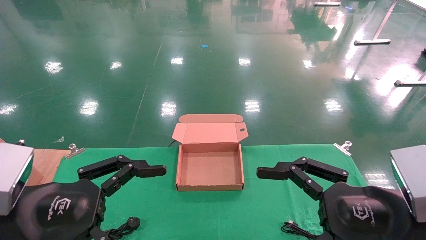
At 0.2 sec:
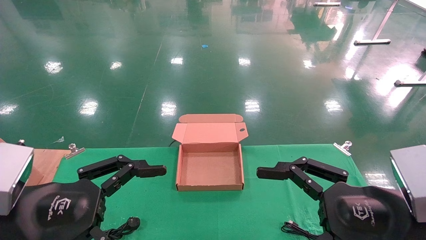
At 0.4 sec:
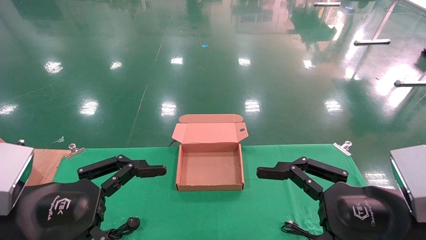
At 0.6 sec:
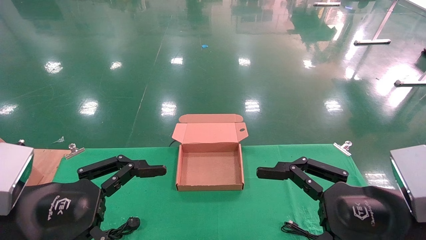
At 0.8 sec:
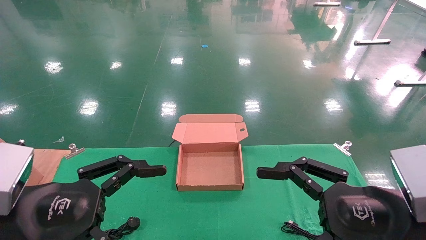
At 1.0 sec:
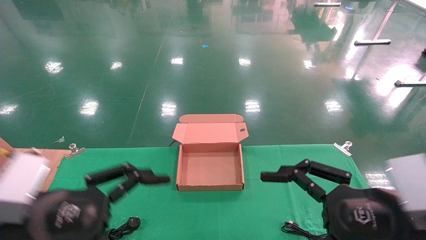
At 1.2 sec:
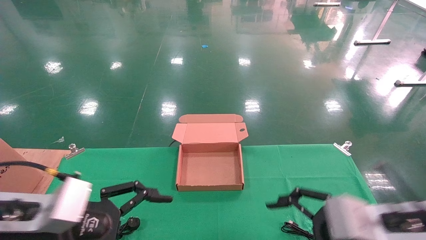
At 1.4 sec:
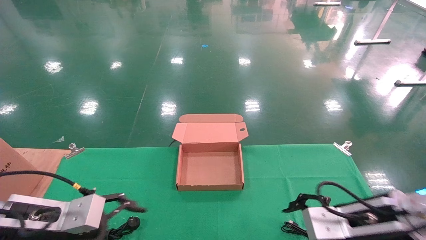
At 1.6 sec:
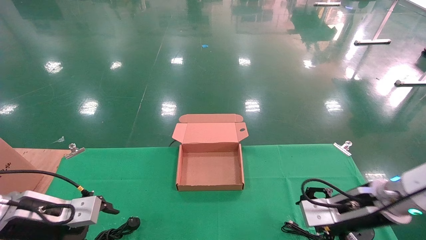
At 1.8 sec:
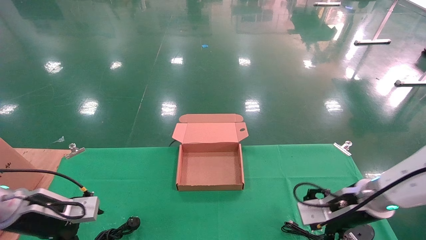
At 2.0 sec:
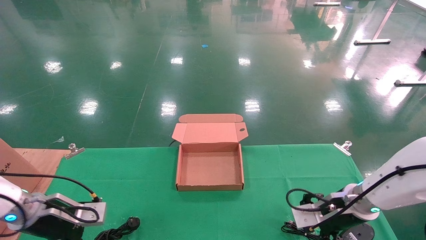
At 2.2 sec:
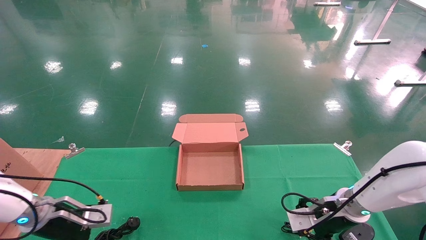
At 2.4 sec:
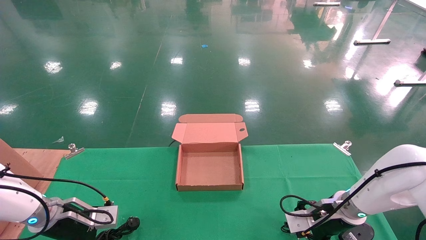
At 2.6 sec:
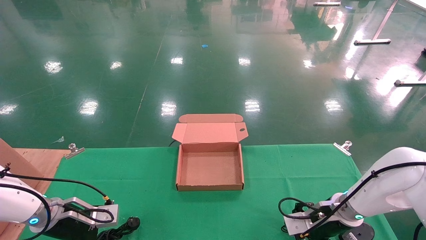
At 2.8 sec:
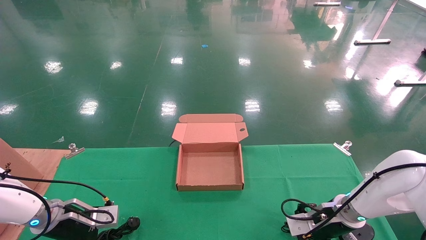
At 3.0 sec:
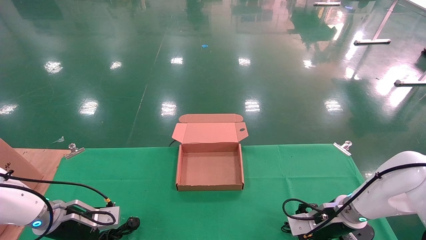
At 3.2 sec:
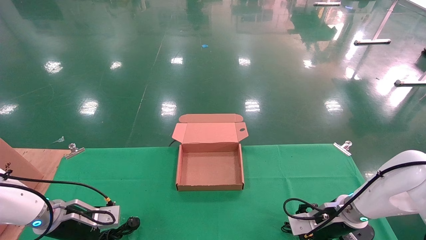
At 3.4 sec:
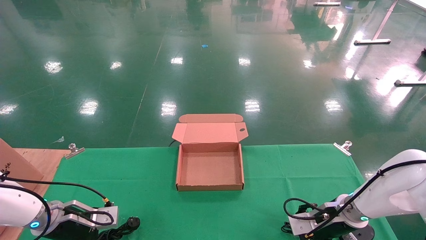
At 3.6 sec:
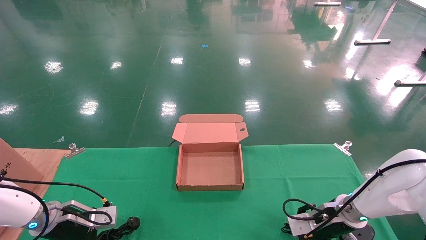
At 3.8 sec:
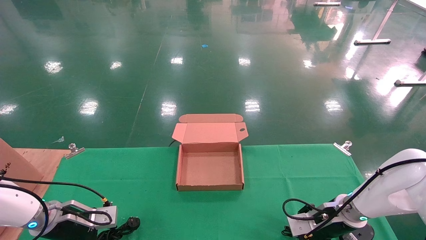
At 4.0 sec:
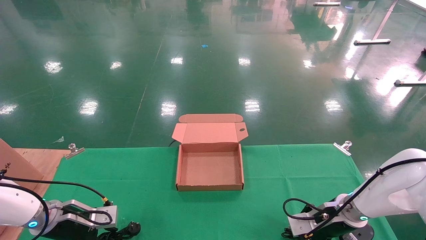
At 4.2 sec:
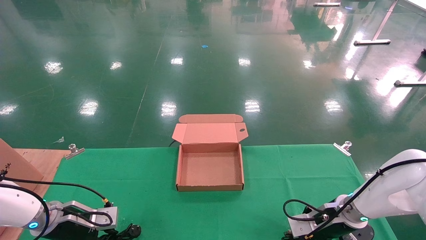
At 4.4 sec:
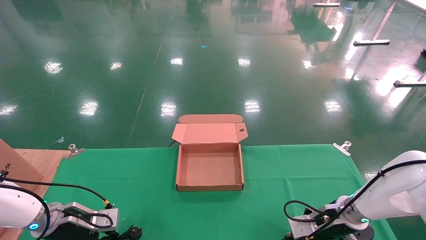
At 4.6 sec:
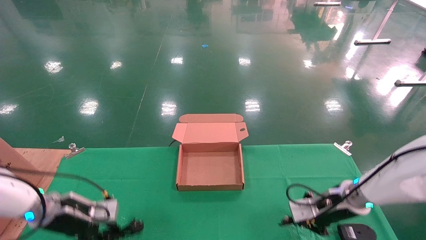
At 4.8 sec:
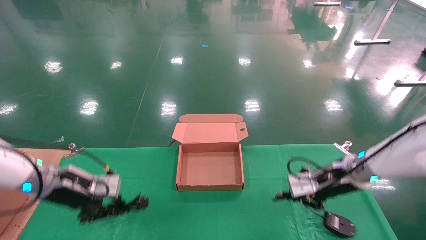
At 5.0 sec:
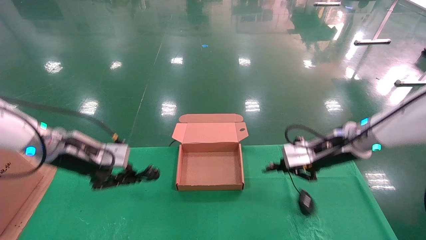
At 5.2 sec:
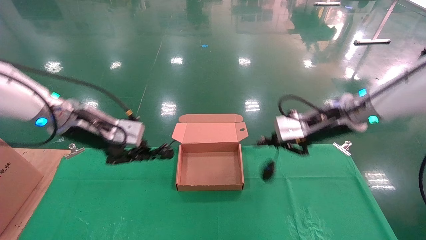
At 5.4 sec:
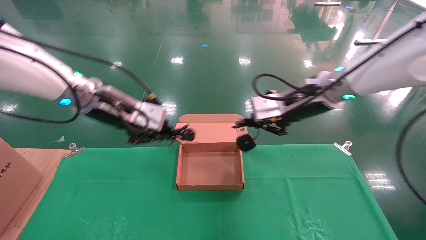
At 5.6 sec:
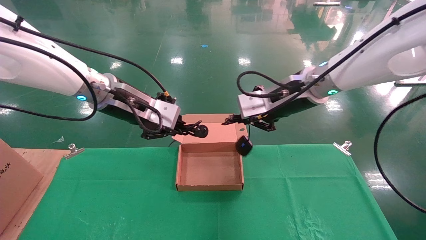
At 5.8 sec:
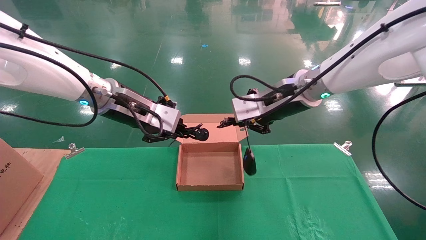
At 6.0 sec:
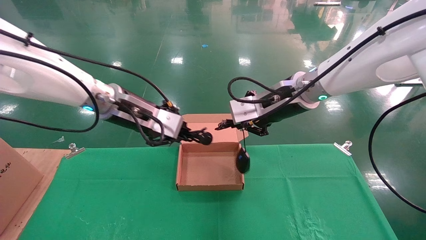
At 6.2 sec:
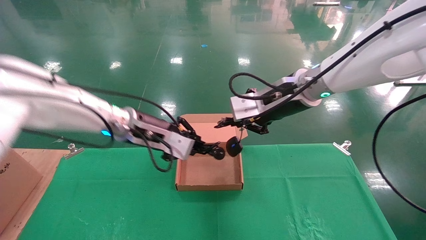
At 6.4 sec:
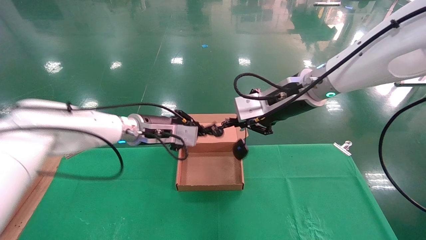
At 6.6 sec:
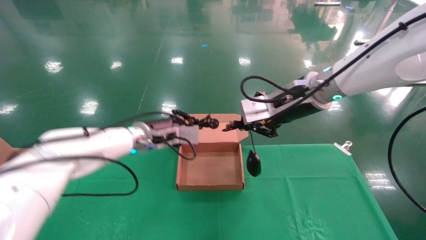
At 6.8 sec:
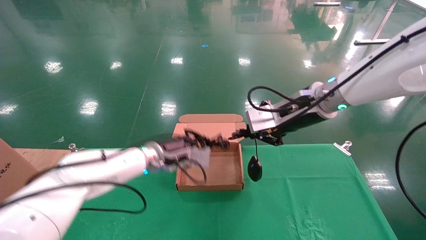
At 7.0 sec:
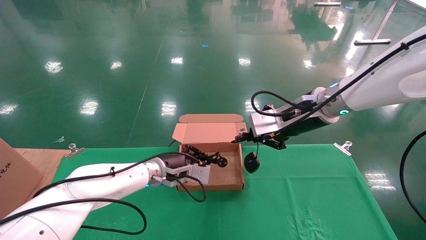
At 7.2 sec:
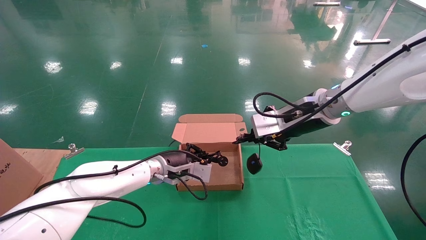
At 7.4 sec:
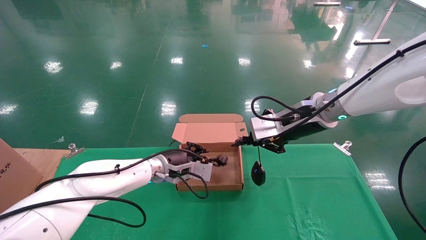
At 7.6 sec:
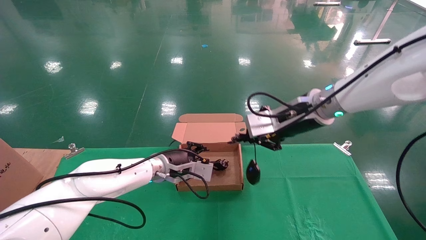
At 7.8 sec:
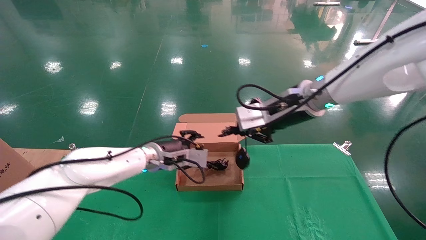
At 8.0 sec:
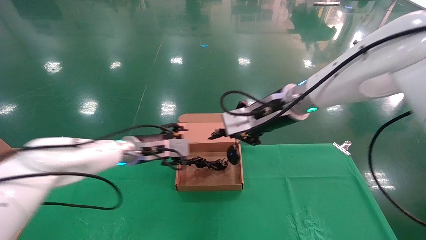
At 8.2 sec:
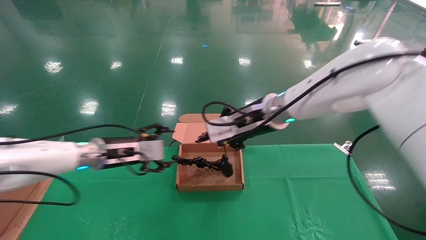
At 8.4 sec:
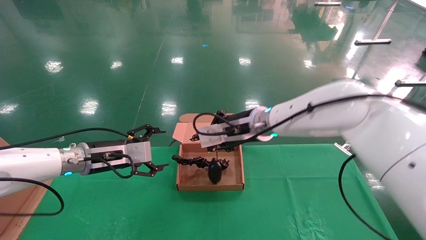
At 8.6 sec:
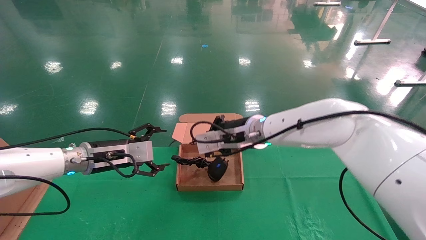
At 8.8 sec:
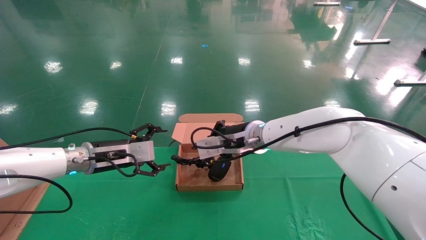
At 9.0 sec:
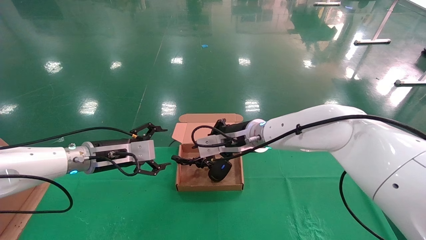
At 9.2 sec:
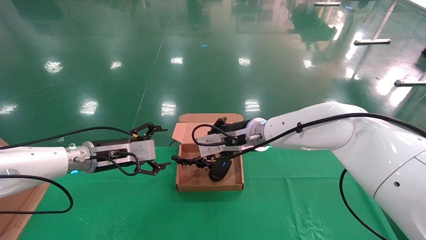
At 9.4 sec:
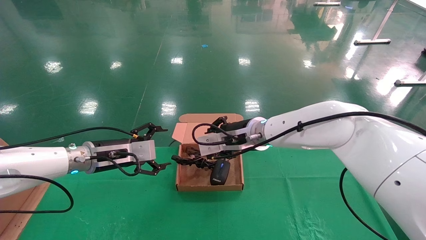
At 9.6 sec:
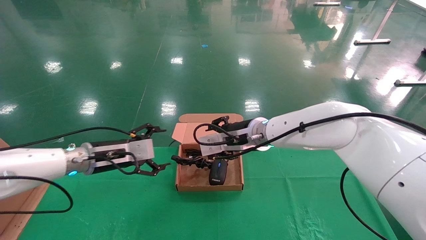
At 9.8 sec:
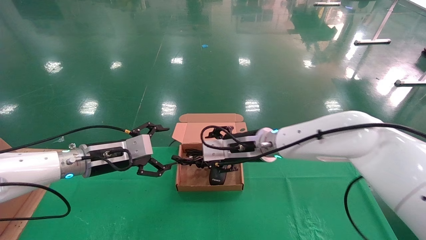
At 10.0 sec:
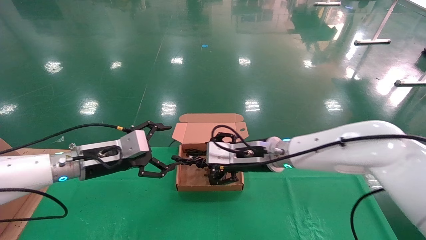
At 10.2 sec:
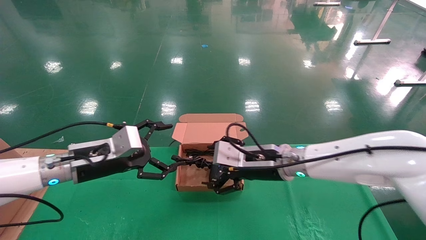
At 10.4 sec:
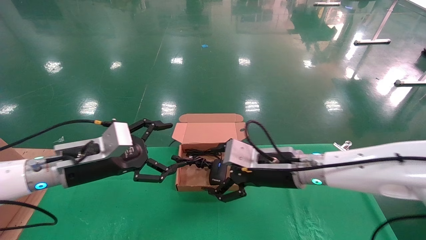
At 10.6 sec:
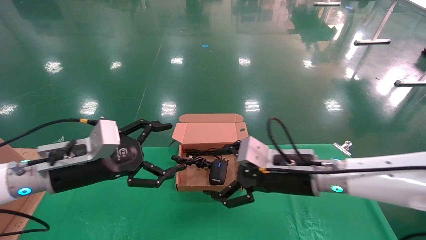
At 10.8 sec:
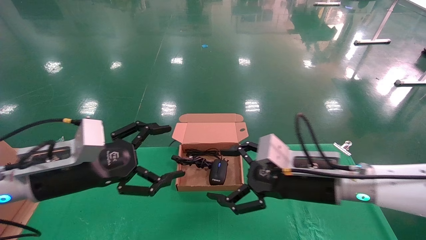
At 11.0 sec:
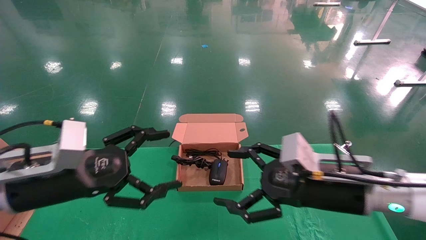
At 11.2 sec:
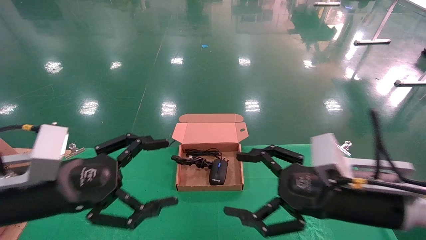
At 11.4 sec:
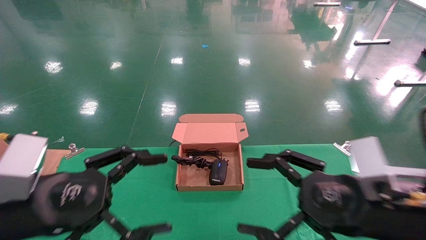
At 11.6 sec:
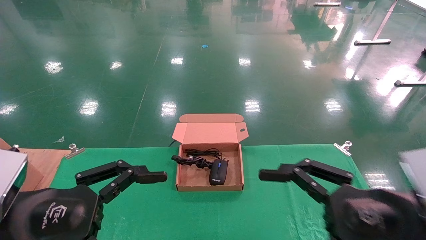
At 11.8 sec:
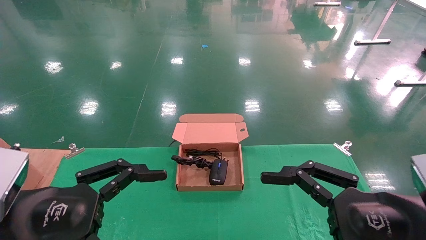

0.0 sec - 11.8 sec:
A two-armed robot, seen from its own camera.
Step, 1.2 sec - 5.0 sec: Grab and lift both the mouse and power cord from the accessory packaging area at the same time.
Step, 5.2 sec - 10.0 sec: Place the mouse and power cord into the box.
0.0 sec - 1.4 sec: The grippers both shift forward and downward by about 10 cm.
1.4 sec - 3.0 sec: The two grippers go roughly 15 cm forward and downward.
3.0 sec - 4.4 sec: The right gripper closes up. Meanwhile the left gripper closes its fingers.
4.4 sec - 6.0 sec: The right gripper shifts approximately 30 cm upward and to the left. Meanwhile the left gripper is displaced upward and to the right by approximately 30 cm.
6.0 sec - 7.4 sec: The left gripper moves downward and forward, some 20 cm.
7.4 sec - 8.8 sec: The left gripper moves to the left, some 15 cm, and opens. The right gripper travels to the left and downward by roughly 15 cm.
8.8 sec - 10.4 sec: The right gripper is displaced backward and to the right by approximately 10 cm, and opens up. Meanwhile the left gripper shifts some 10 cm backward.
10.4 sec - 11.8 sec: The right gripper heads backward and to the right, covering roughly 25 cm. Meanwhile the left gripper heads backward, covering approximately 15 cm.
